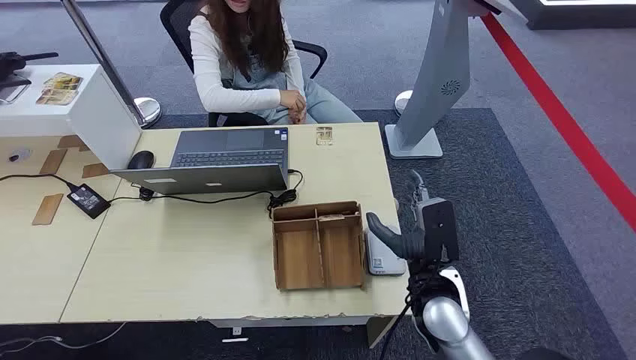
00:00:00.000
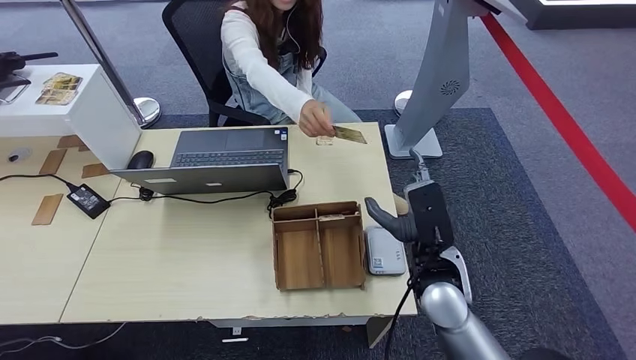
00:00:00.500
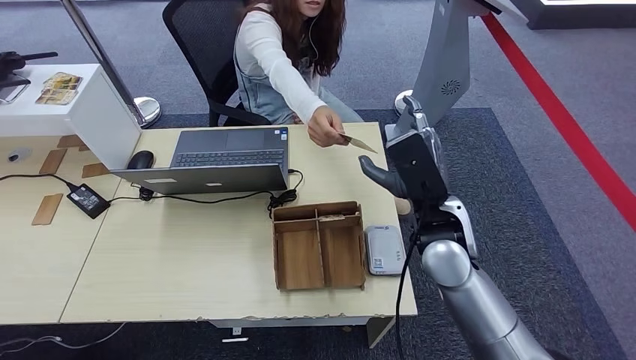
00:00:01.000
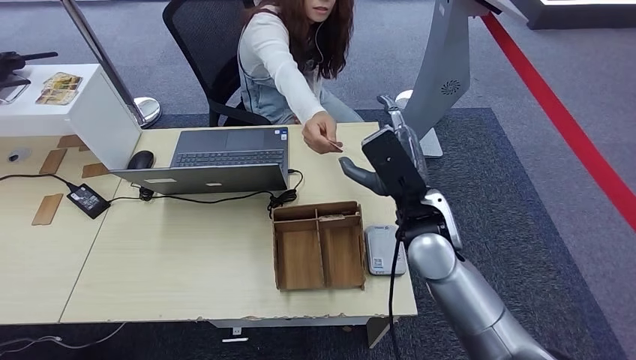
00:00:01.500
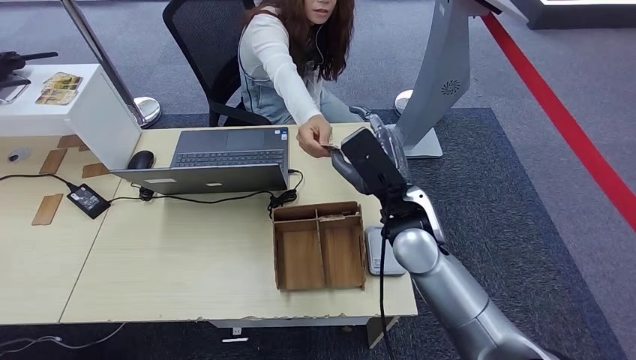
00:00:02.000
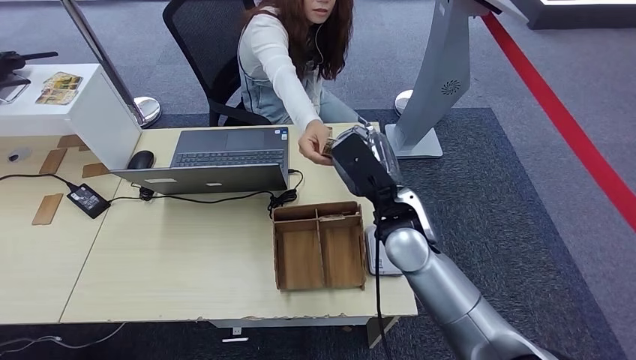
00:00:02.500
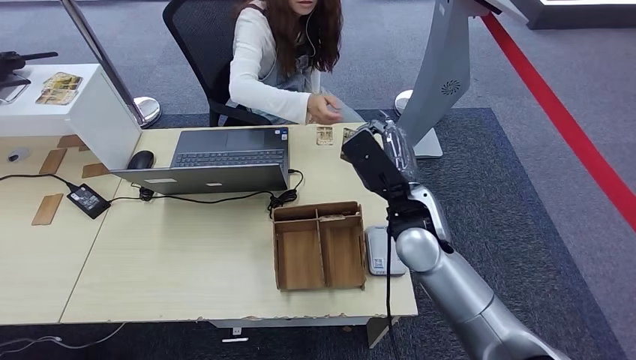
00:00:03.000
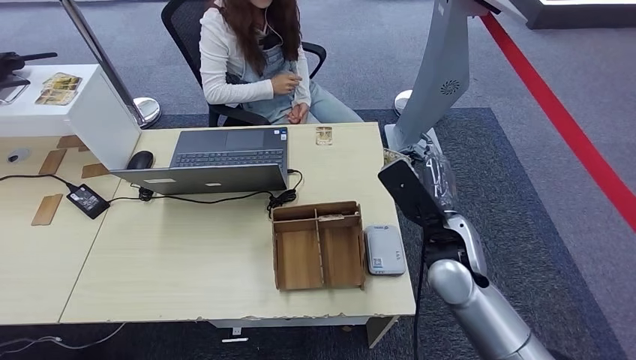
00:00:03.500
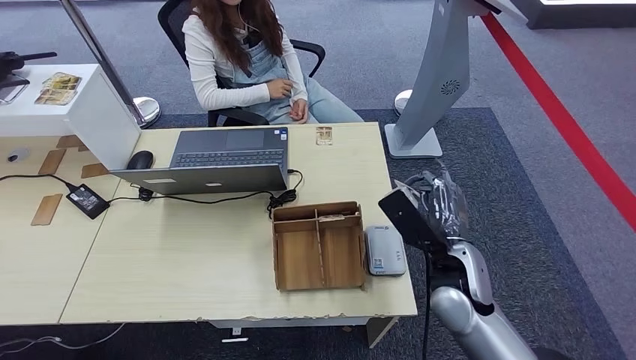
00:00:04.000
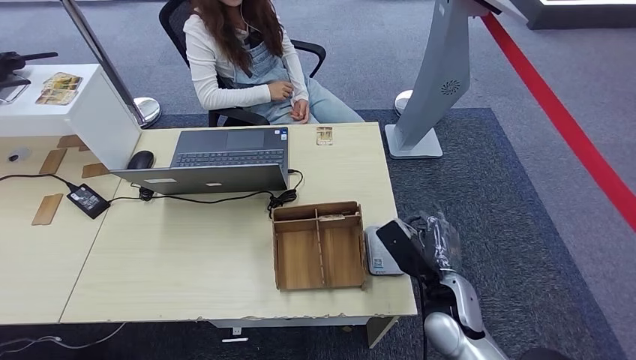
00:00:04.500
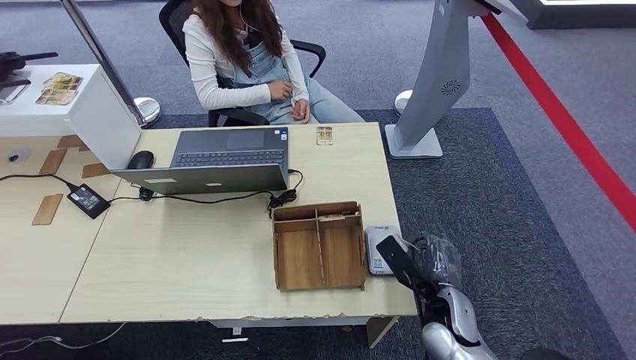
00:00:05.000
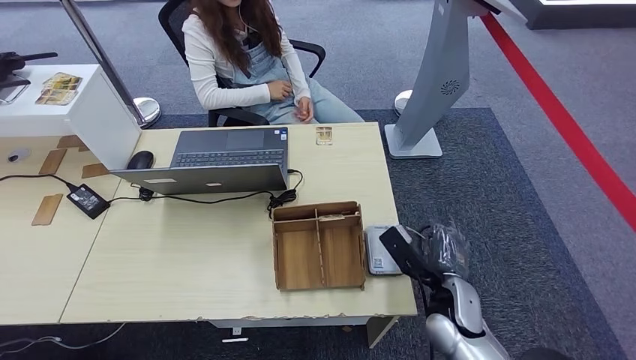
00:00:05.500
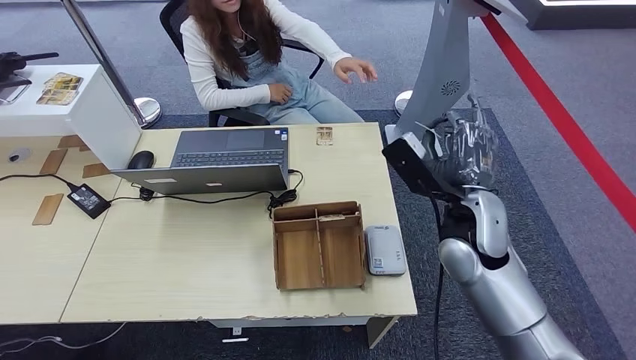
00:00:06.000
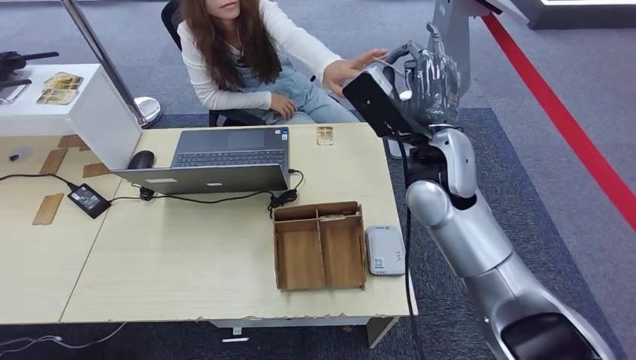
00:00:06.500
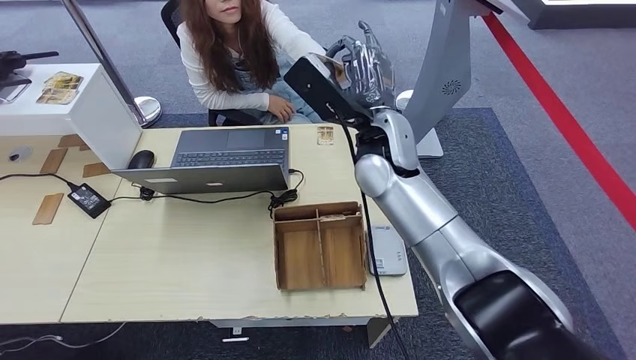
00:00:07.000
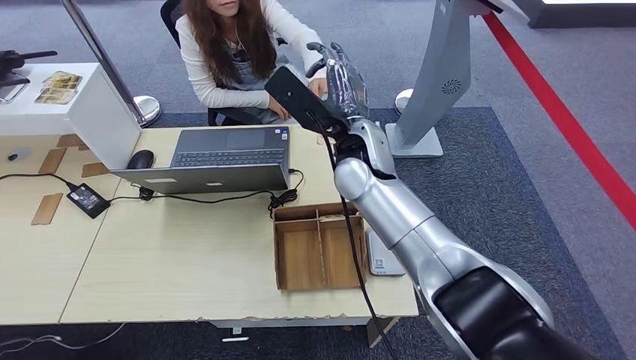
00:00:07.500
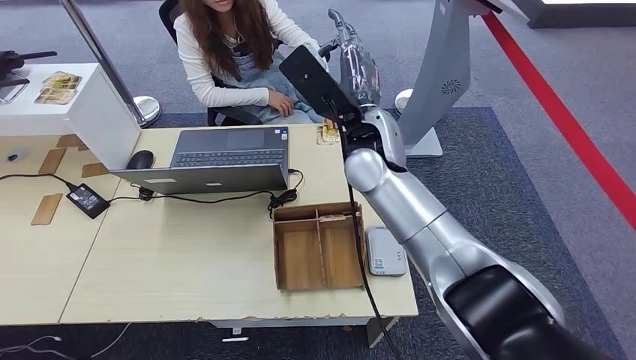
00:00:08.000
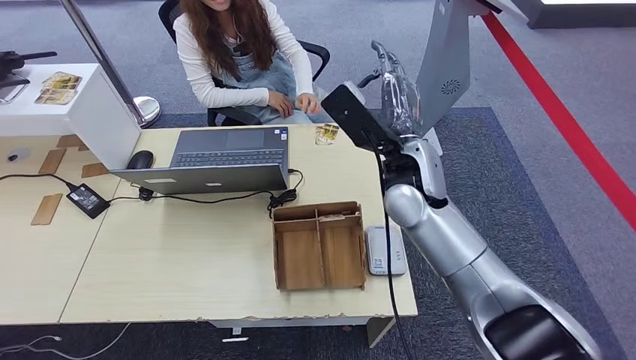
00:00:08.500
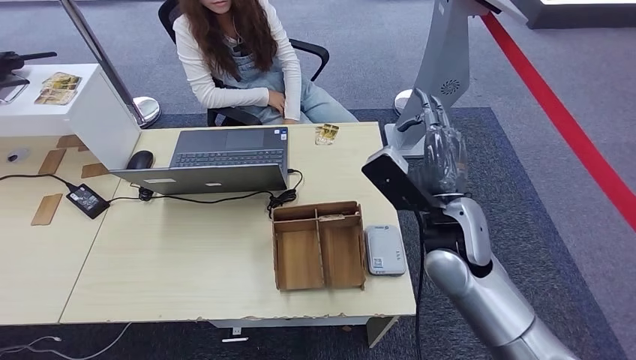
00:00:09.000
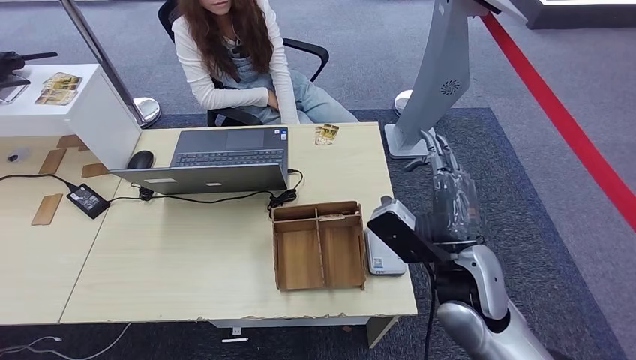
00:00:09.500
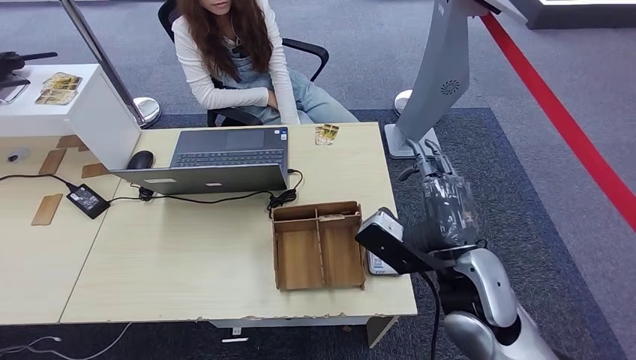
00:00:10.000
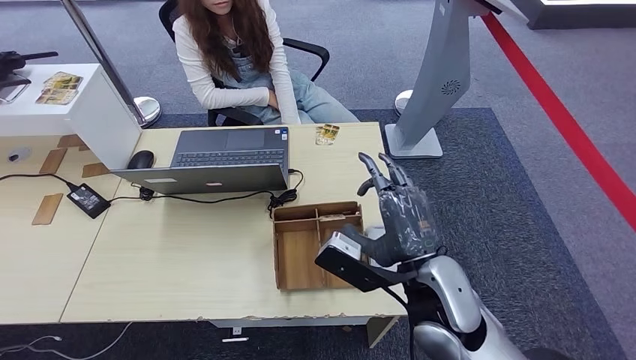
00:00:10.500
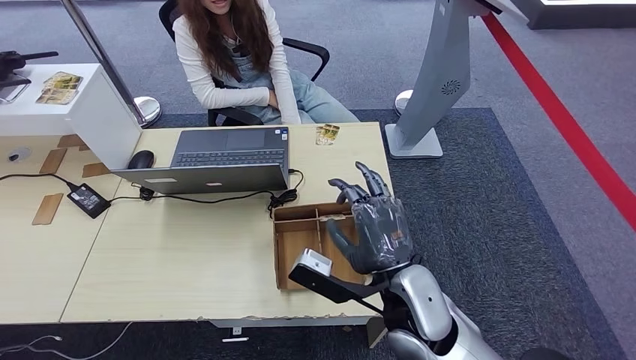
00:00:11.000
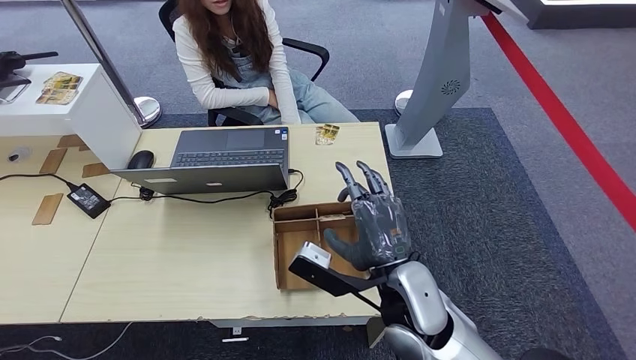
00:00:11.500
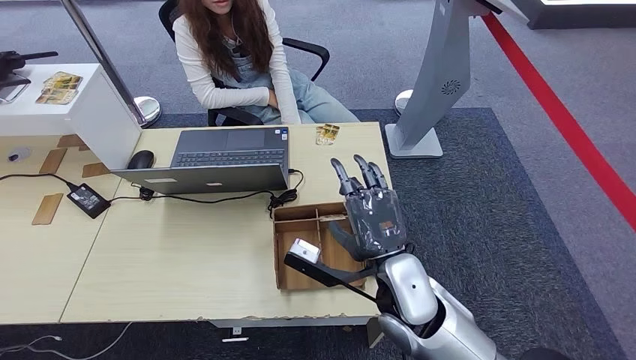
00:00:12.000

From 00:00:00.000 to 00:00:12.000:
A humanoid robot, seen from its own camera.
Step, from 00:00:00.000 to 00:00:02.500: Take the ID card from the person's hand.
Step, from 00:00:03.500 to 00:00:05.500: Place the ID card on the card reader.
Step, from 00:00:06.000 to 00:00:08.000: Hand the ID card to the person.
From 00:00:02.000 to 00:00:04.000: The right hand heads to the right, downward and backward, covering approximately 10 cm.
From 00:00:04.000 to 00:00:06.000: The right hand travels upward by some 5 cm.
From 00:00:08.000 to 00:00:10.000: The right hand is displaced backward, to the right and downward by some 25 cm.
From 00:00:10.000 to 00:00:12.000: The right hand shifts roughly 10 cm to the left.

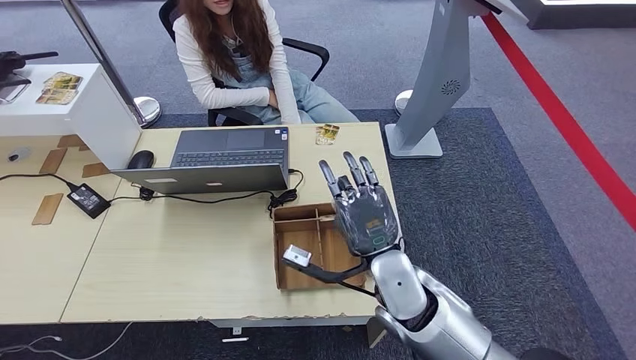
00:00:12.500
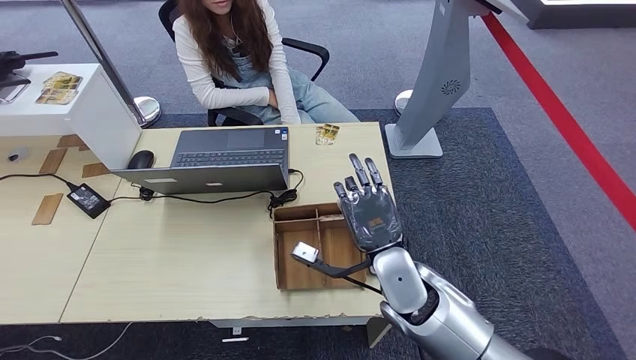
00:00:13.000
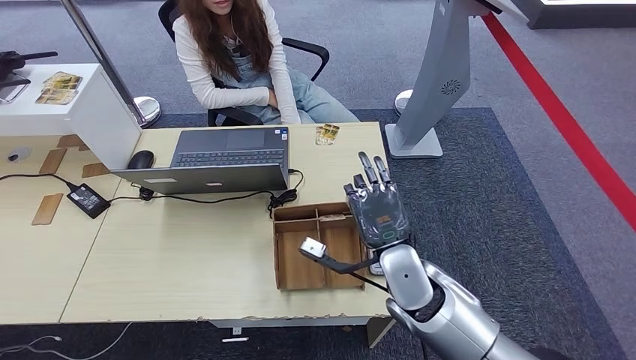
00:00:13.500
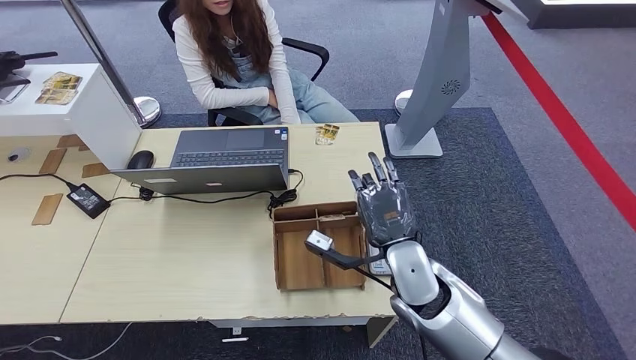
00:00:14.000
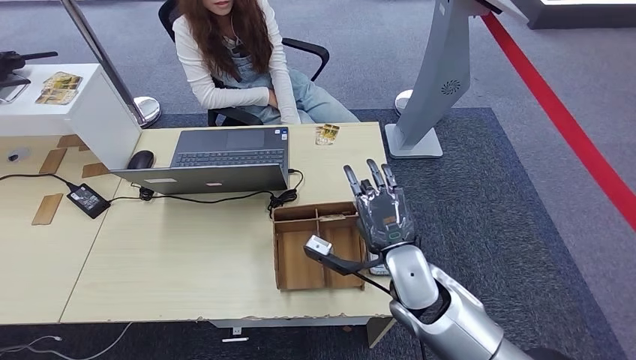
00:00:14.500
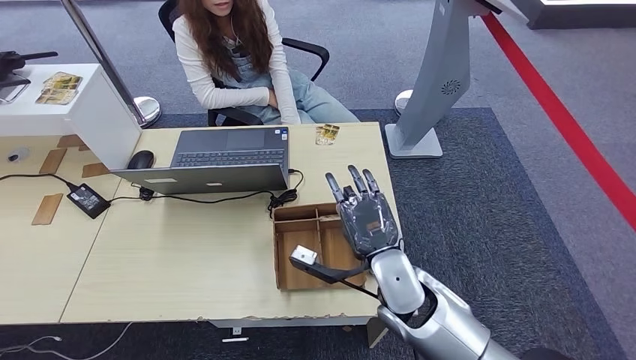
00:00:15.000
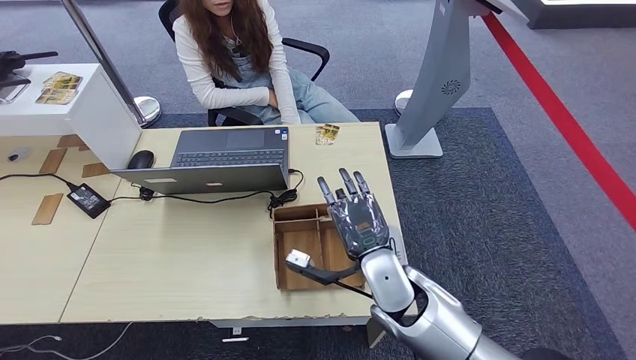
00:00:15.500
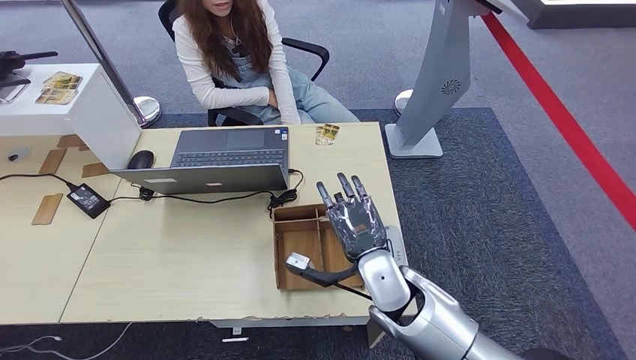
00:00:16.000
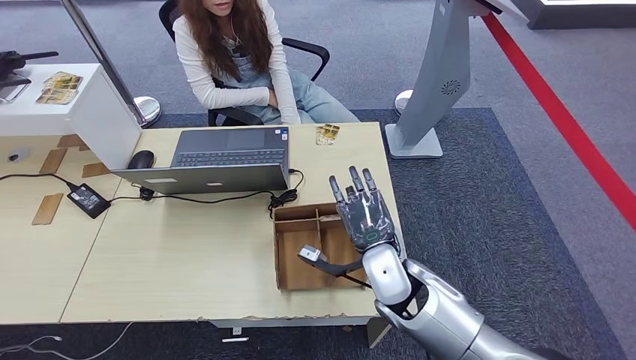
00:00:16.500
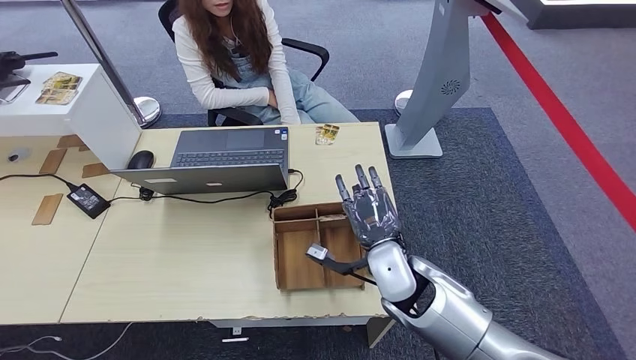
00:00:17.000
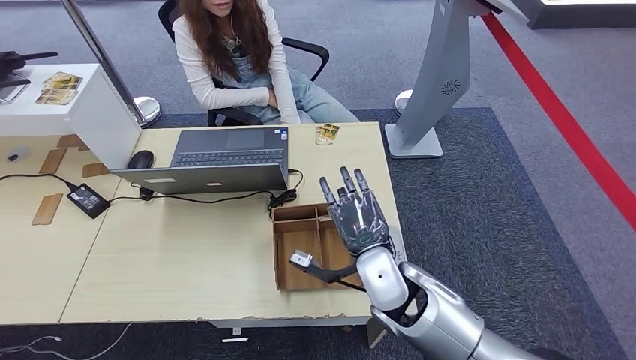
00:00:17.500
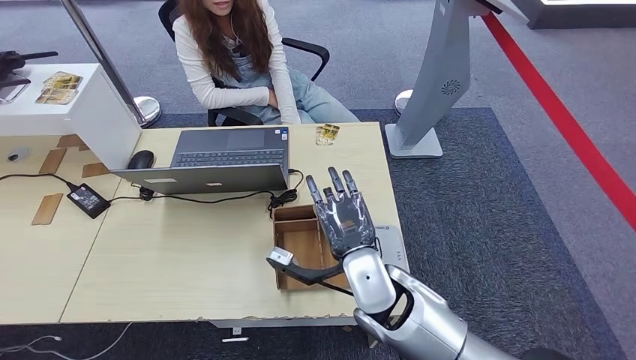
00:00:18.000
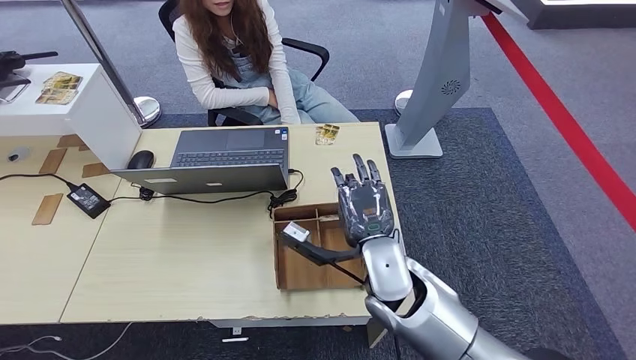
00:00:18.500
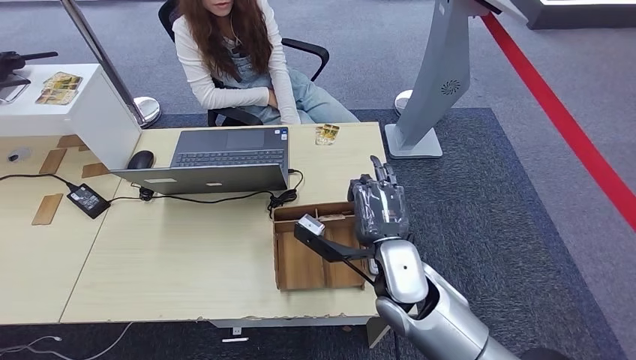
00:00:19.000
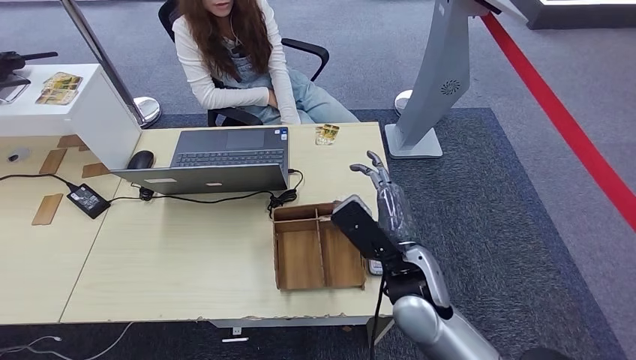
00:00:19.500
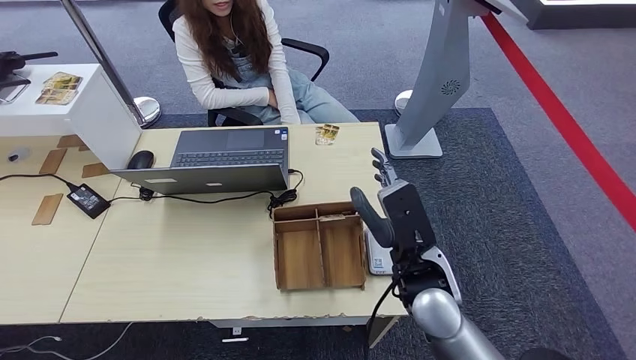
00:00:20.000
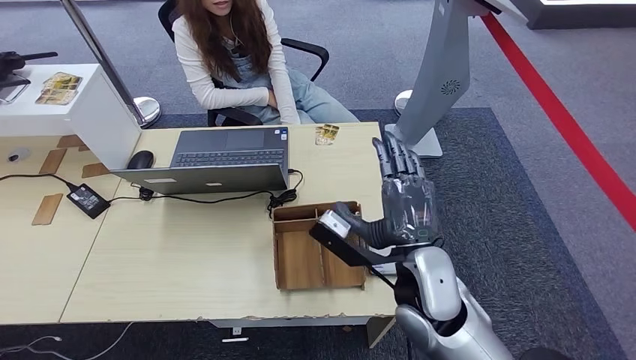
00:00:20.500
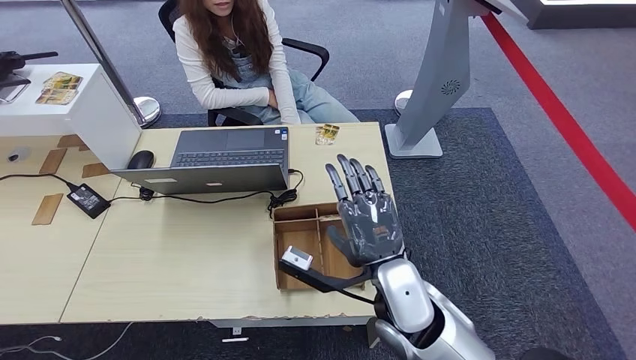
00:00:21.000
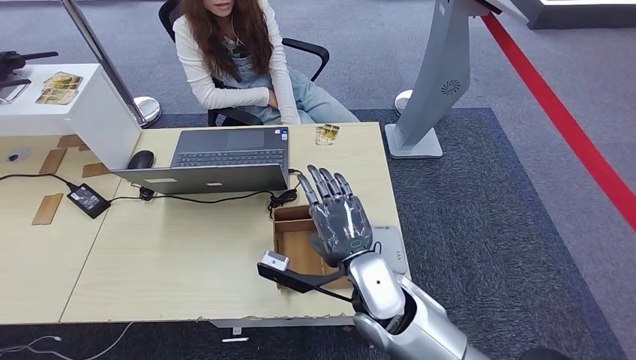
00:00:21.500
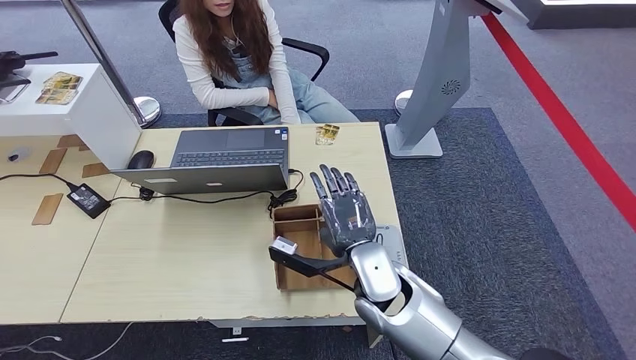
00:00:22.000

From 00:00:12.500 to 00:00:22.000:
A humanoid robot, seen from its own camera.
From 00:00:12.500 to 00:00:14.500: The hands move only a little.
From 00:00:14.500 to 00:00:16.500: There are only small adjustments of the hands.
From 00:00:16.500 to 00:00:18.000: The right hand shifts by some 5 cm.
From 00:00:18.000 to 00:00:20.000: The right hand heads to the right, covering some 5 cm.
From 00:00:20.000 to 00:00:22.000: The right hand goes about 5 cm to the left.
